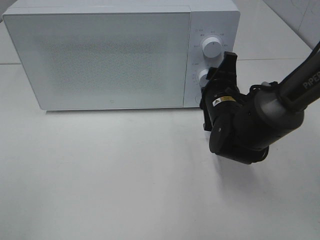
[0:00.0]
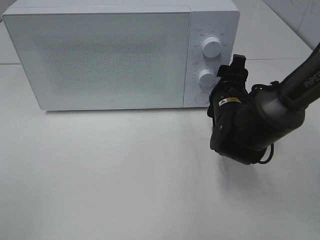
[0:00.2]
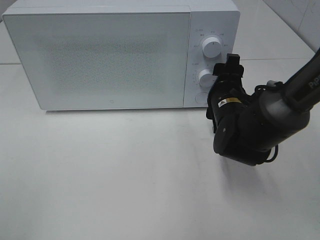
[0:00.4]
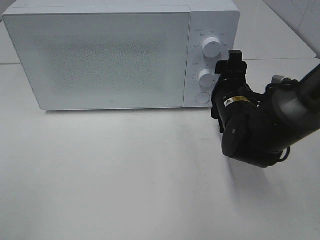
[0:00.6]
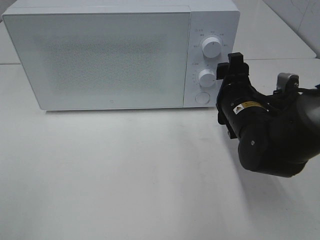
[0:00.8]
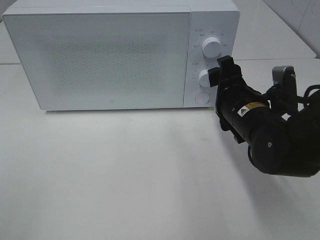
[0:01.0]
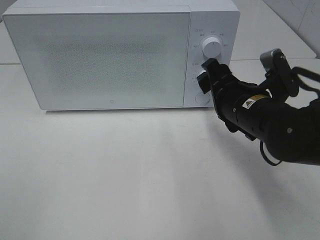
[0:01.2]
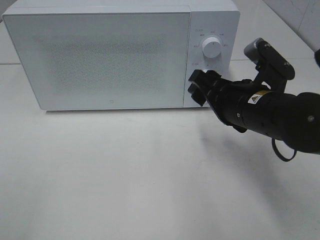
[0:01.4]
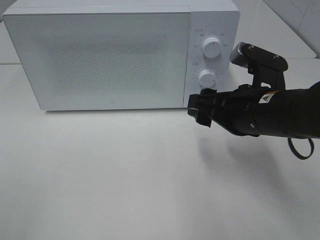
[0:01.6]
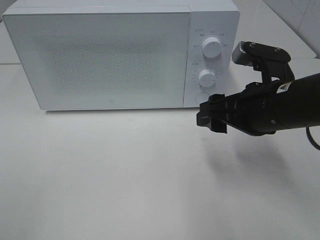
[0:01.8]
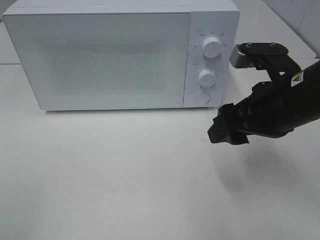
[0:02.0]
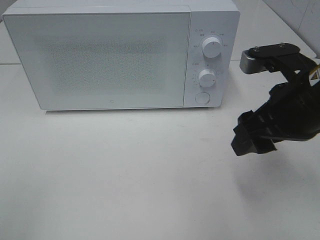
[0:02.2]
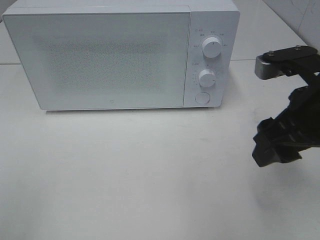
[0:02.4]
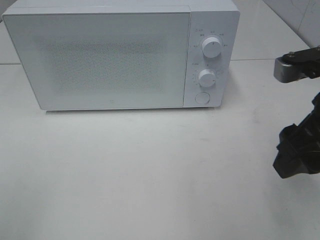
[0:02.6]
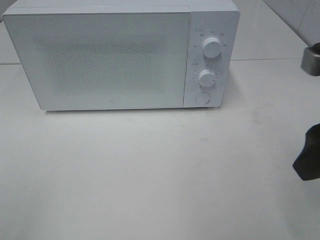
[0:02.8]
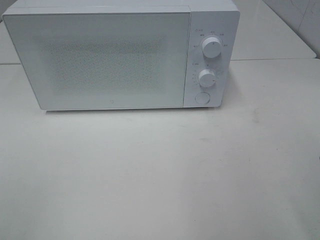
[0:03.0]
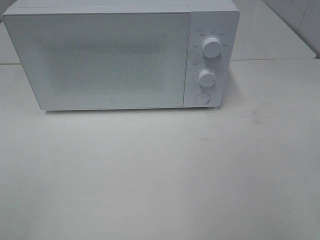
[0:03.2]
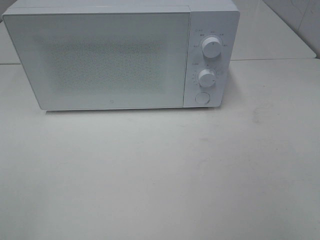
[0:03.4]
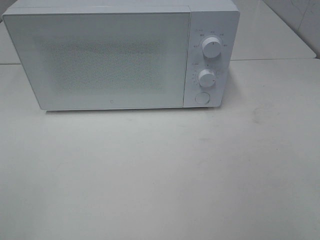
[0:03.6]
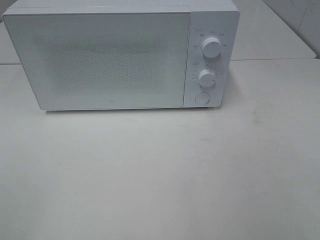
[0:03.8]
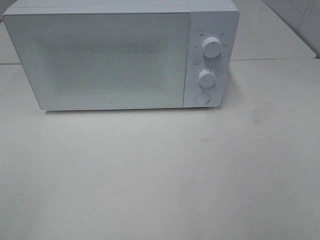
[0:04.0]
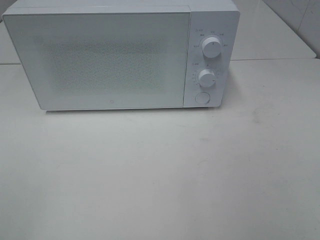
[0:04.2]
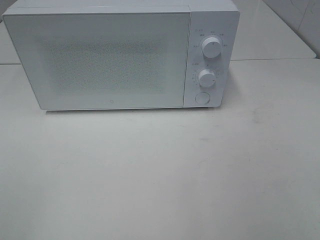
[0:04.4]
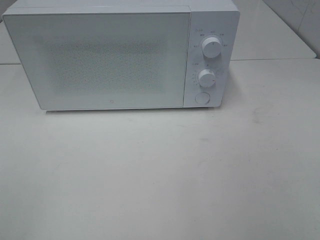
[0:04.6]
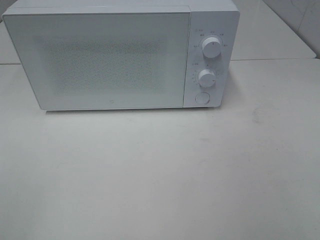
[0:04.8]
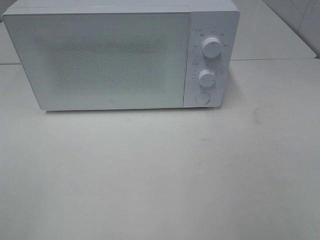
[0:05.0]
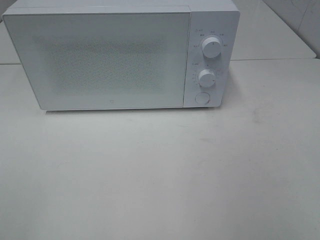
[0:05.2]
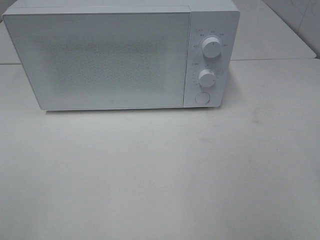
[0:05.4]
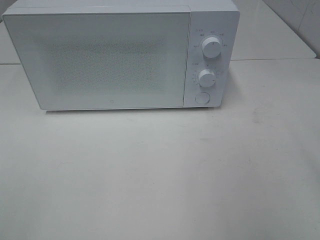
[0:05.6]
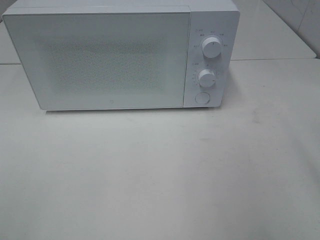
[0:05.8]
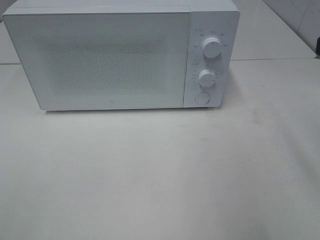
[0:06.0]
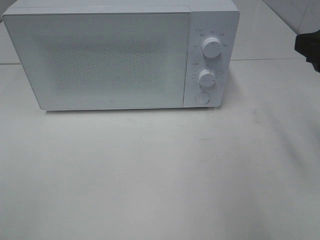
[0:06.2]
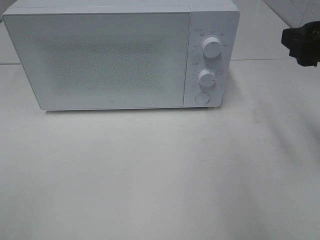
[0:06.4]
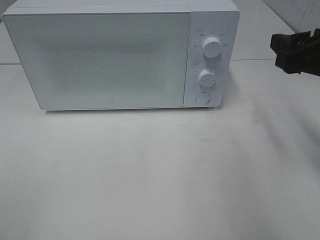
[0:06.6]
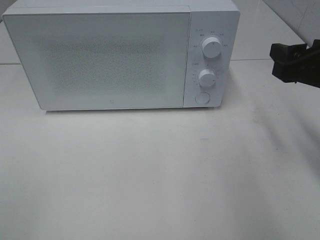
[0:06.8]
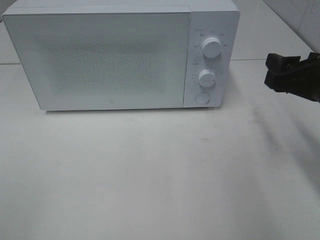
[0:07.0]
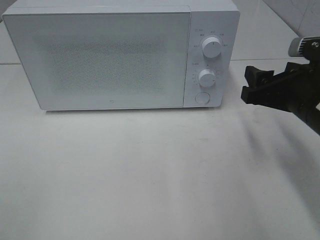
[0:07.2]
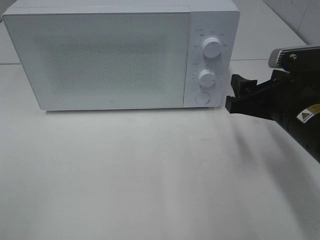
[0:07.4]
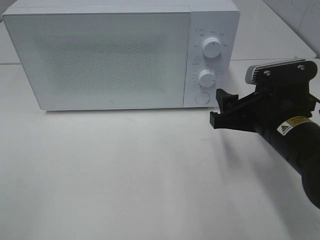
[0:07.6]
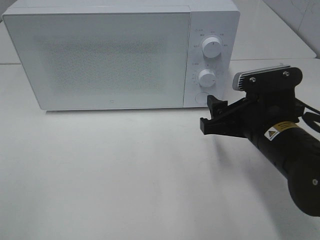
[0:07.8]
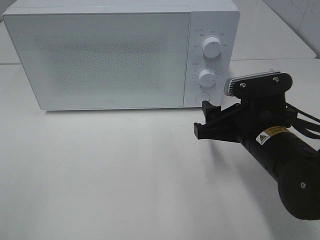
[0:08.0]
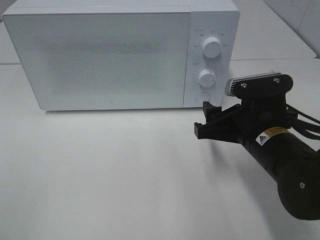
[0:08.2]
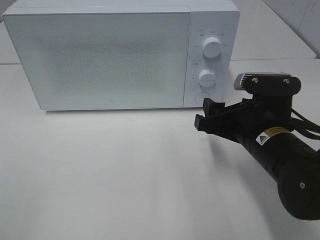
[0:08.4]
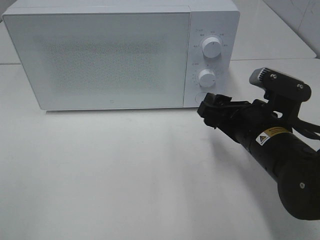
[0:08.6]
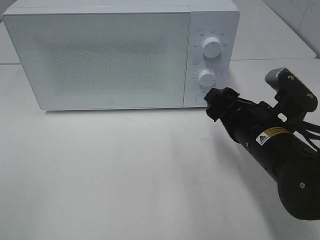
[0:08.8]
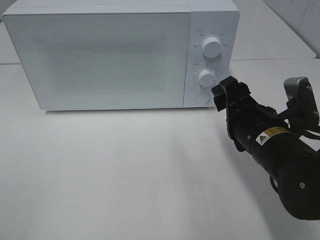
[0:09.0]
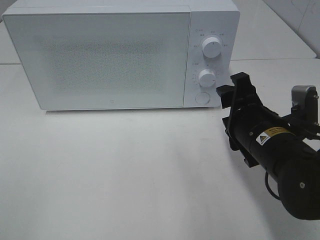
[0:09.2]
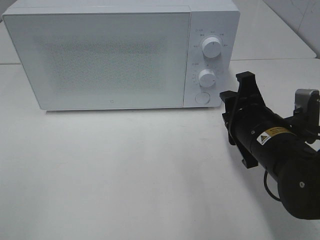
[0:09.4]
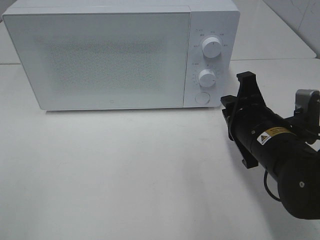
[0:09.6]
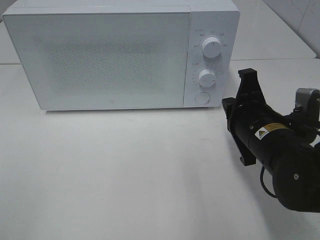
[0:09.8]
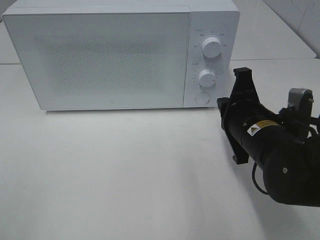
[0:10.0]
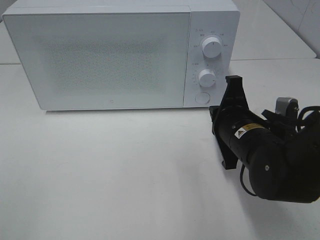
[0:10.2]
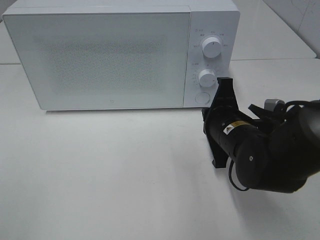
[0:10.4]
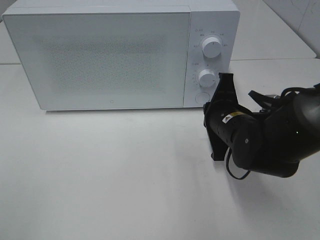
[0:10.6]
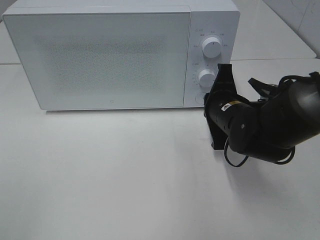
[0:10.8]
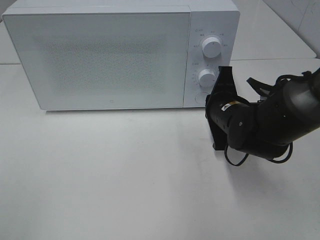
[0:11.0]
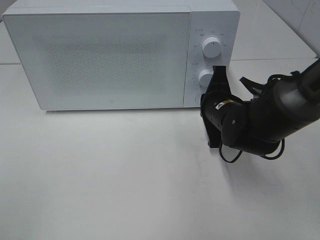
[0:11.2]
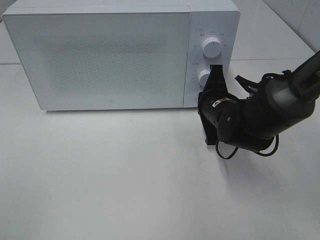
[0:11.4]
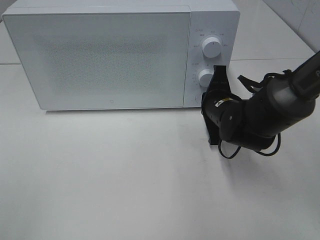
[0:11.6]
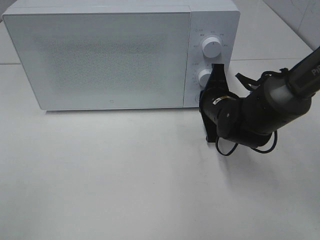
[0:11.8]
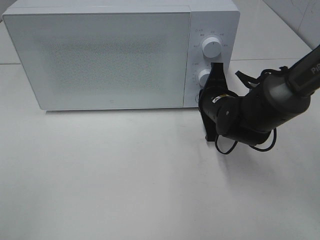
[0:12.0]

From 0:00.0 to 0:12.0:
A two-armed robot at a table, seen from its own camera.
Task of the whole recording: Heat the burger.
From 0:00.0 to 0:01.6: The right gripper heads backward and upward, covering about 10 cm.
From 0:01.6 to 0:03.0: The right gripper shifts about 20 cm backward, upward and to the right.
From 0:06.0 to 0:07.6: The right gripper goes about 15 cm downward and to the left.
From 0:09.0 to 0:10.4: The right gripper changes place by approximately 5 cm, and closes.
From 0:10.4 to 0:12.0: The right gripper heads forward, covering some 10 cm.

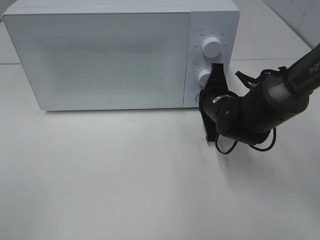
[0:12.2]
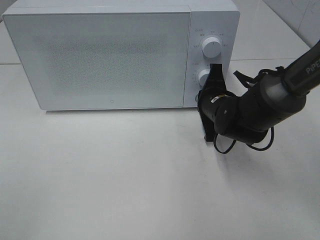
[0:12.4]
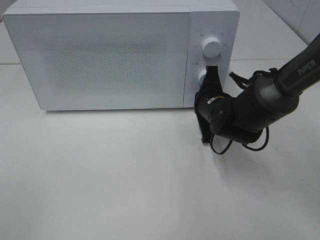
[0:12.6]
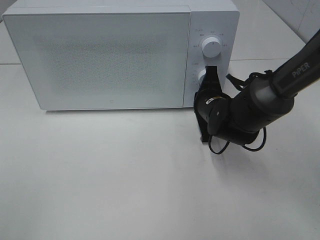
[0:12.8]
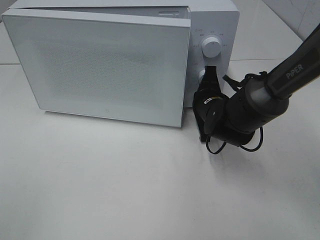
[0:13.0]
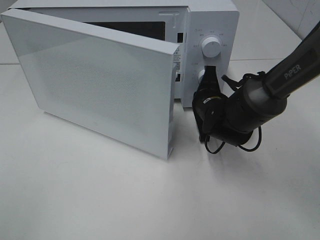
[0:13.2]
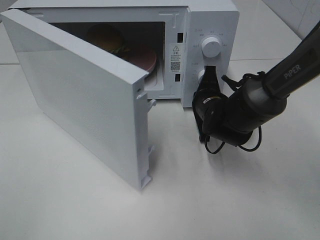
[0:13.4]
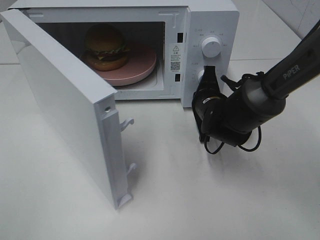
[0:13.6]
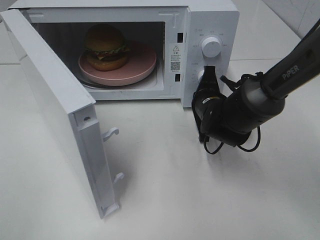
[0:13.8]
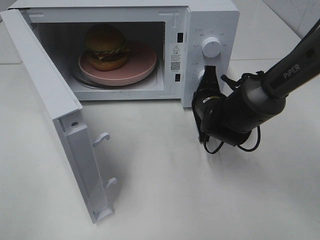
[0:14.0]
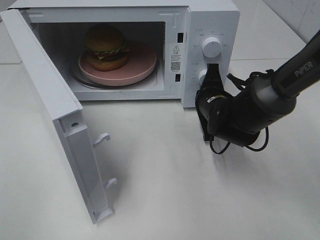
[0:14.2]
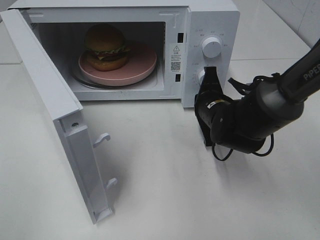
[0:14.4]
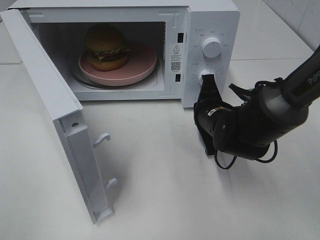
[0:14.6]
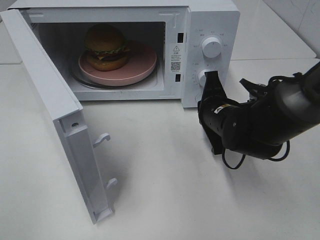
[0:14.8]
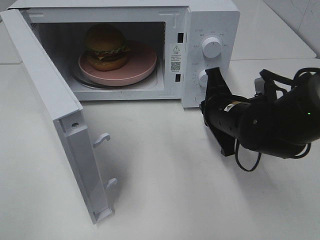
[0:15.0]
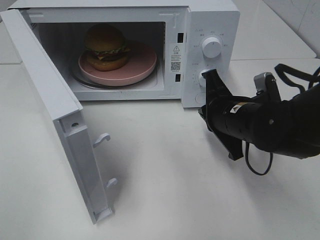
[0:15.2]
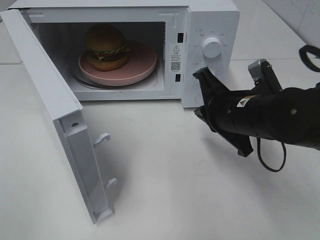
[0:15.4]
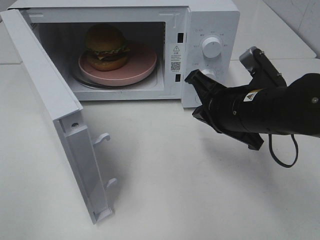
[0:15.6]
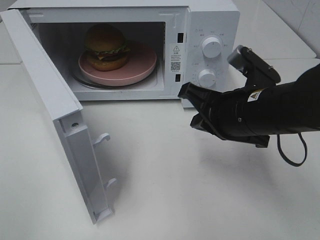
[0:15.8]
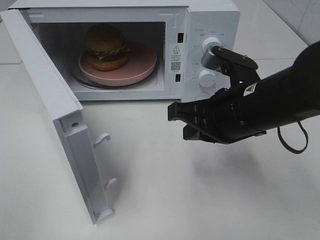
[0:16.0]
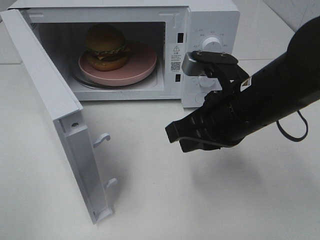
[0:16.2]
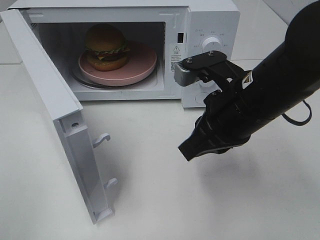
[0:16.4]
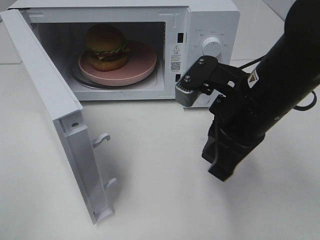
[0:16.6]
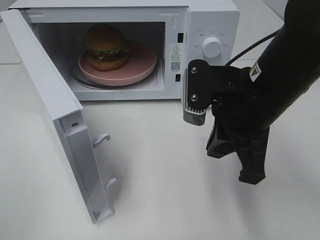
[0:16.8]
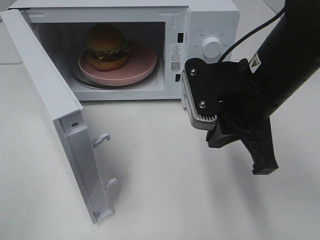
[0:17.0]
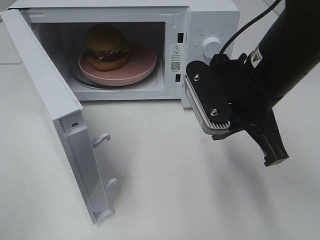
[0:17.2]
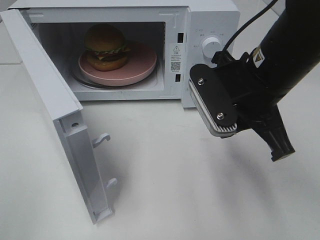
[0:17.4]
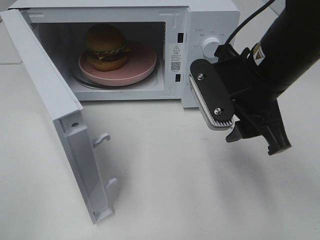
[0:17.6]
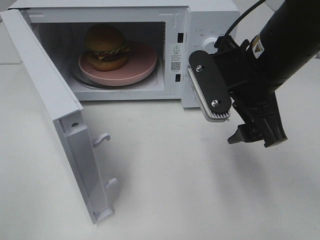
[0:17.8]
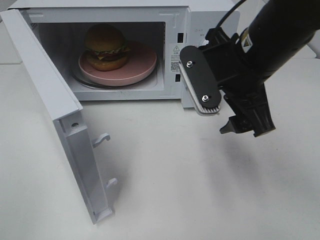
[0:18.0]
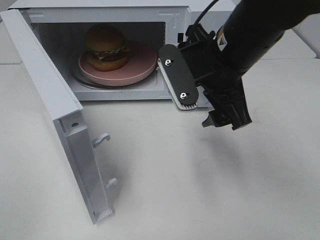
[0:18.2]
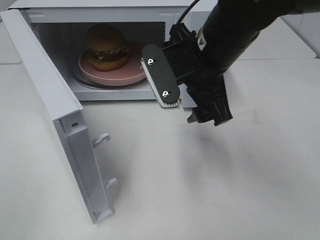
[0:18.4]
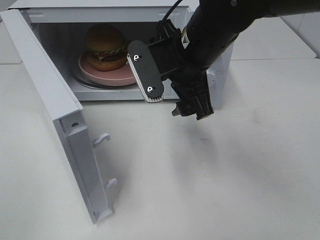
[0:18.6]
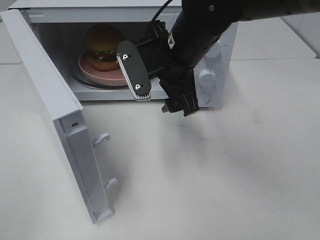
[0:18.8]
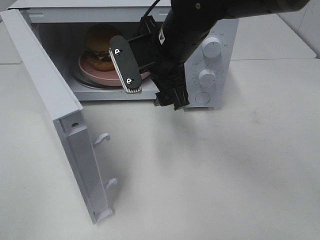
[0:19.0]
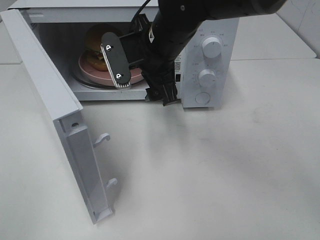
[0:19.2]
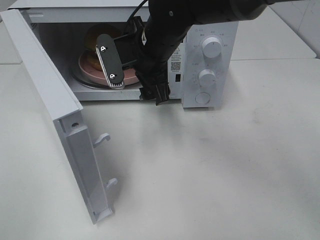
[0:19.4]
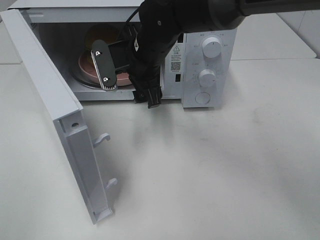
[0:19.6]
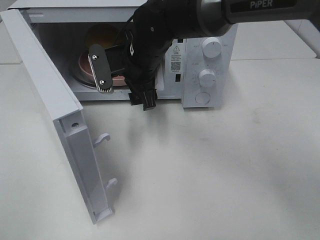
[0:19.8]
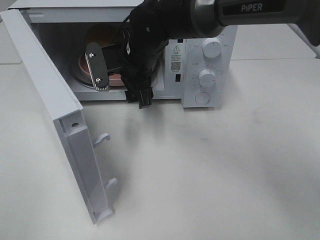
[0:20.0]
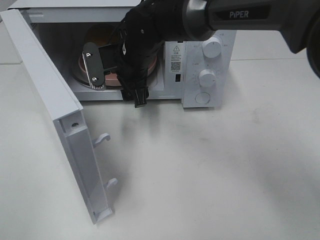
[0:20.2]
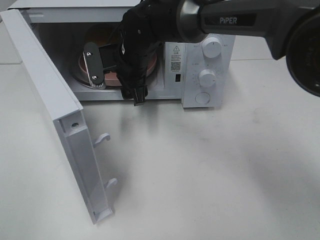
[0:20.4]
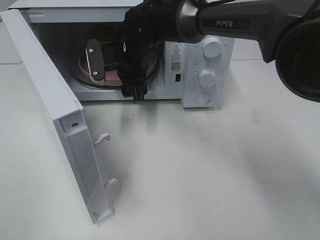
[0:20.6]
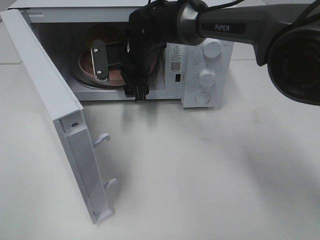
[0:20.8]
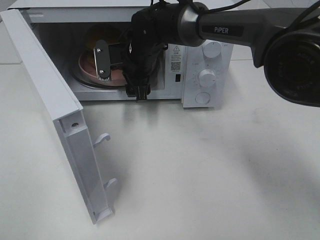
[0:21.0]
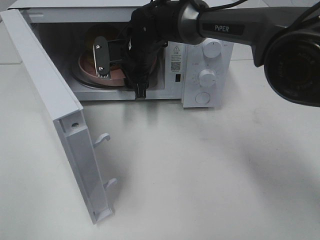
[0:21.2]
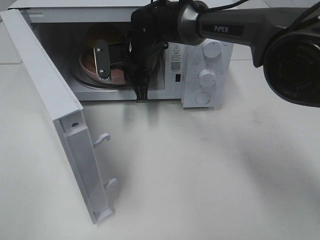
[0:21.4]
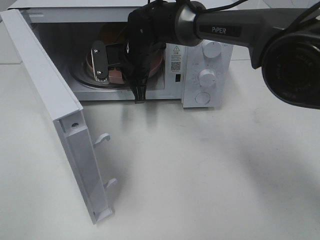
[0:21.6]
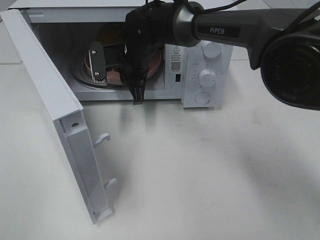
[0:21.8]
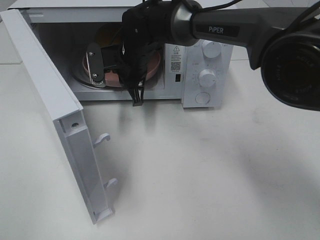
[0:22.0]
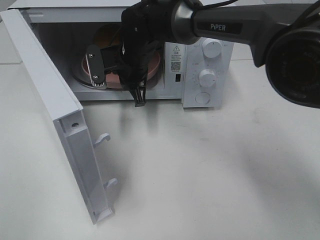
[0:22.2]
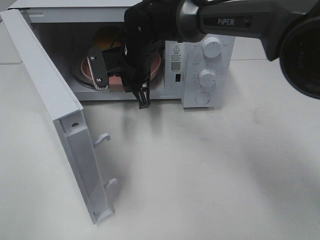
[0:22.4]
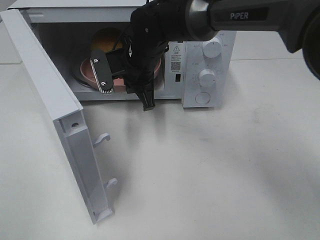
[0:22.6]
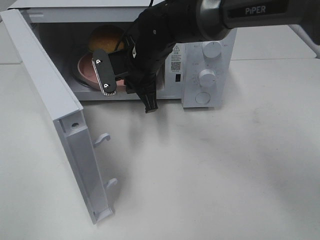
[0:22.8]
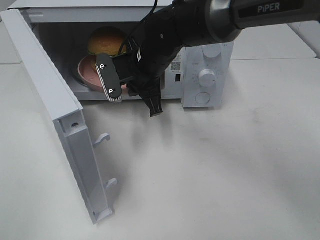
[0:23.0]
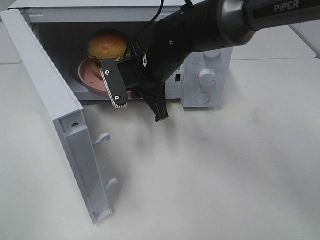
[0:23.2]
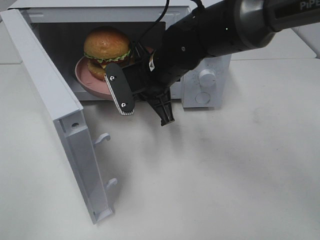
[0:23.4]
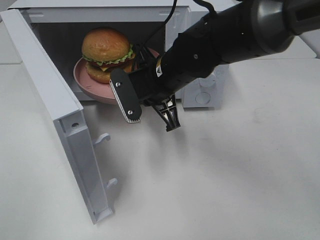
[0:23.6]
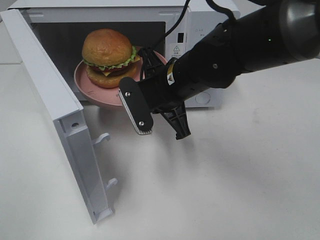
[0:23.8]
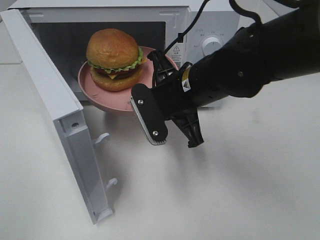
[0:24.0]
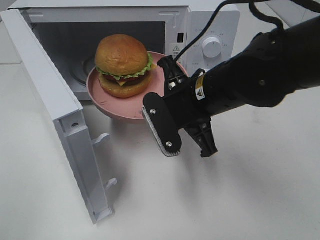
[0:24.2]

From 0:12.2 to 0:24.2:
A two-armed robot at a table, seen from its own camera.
Task of the whole recording: Heat the burger.
Step, from 0:12.2 to 0:14.6: Right hand: press the switch.
Step, from 0:14.8 to 0:21.6: Right hand: grab the plate with the hamburger.
From 0:13.8 to 0:15.2: The right gripper travels backward and upward by approximately 10 cm.
From 0:15.2 to 0:16.6: The right gripper heads upward and backward, covering some 10 cm.
From 0:16.6 to 0:18.2: The right gripper goes approximately 5 cm forward, and opens up.
From 0:18.2 to 0:19.8: The right gripper shifts some 15 cm forward, to the left and downward.
From 0:19.8 to 0:21.2: The right gripper heads forward, covering some 5 cm.
From 0:21.2 to 0:22.6: The right gripper closes.
From 0:22.6 to 0:24.2: The right gripper heads backward and to the right, covering some 15 cm.
